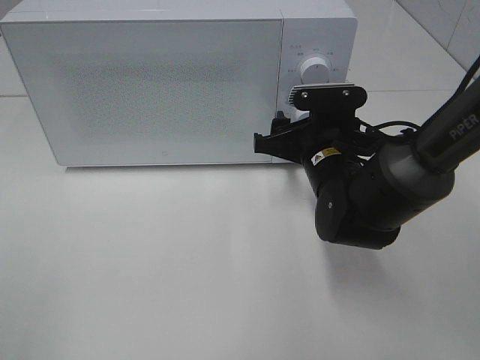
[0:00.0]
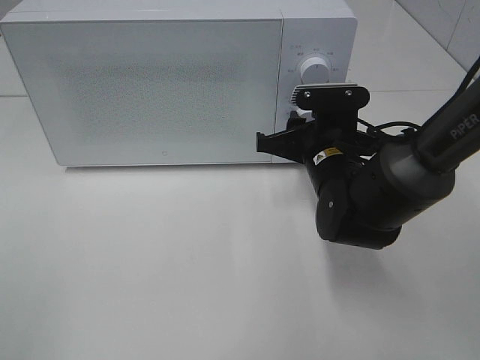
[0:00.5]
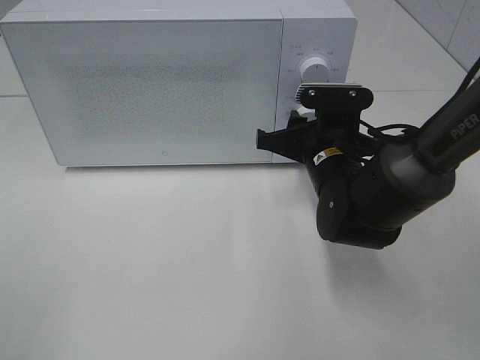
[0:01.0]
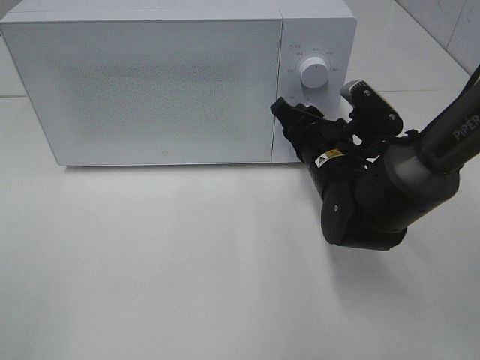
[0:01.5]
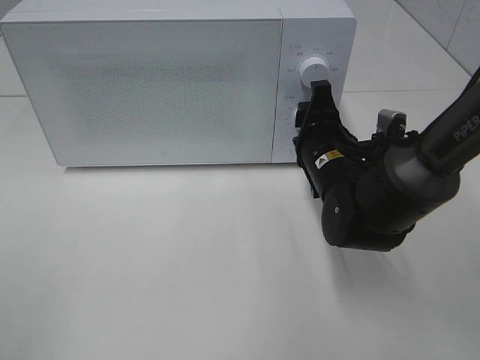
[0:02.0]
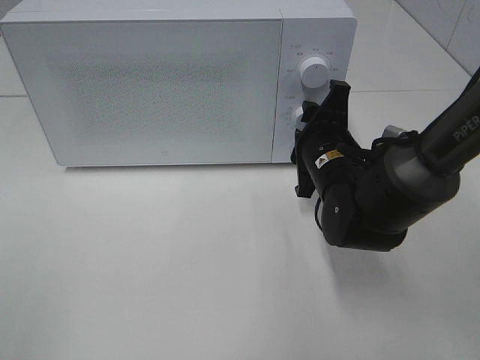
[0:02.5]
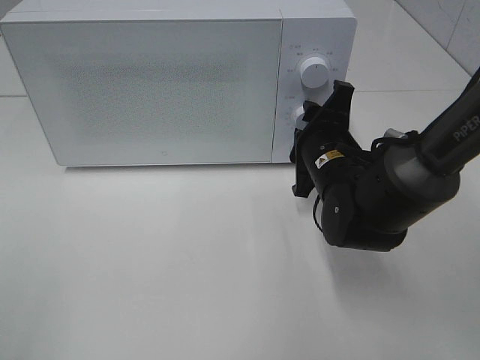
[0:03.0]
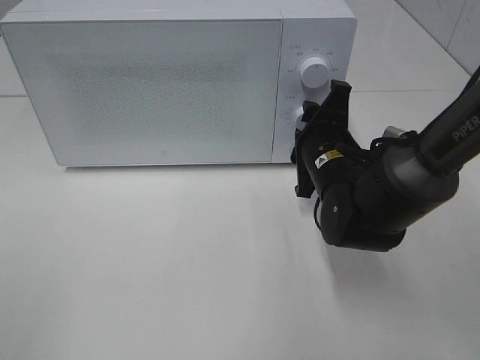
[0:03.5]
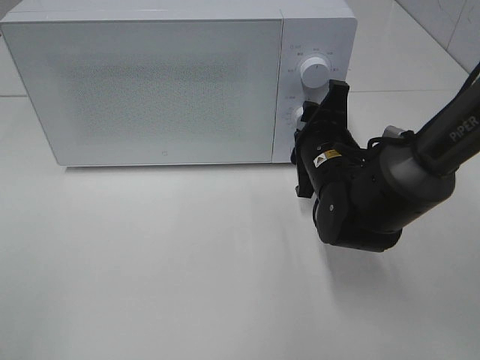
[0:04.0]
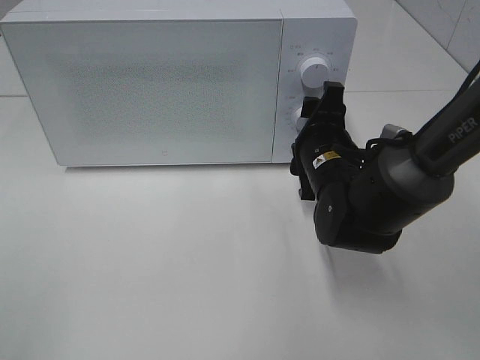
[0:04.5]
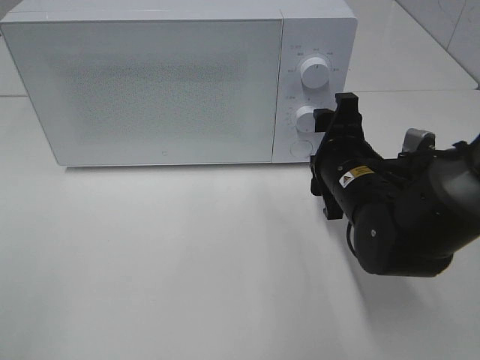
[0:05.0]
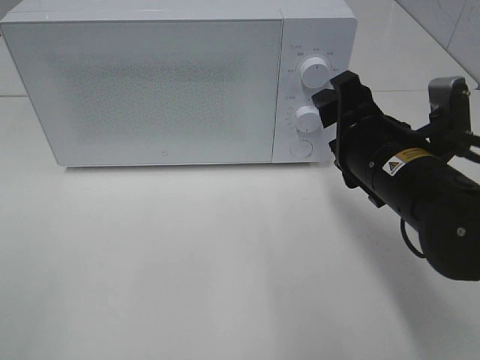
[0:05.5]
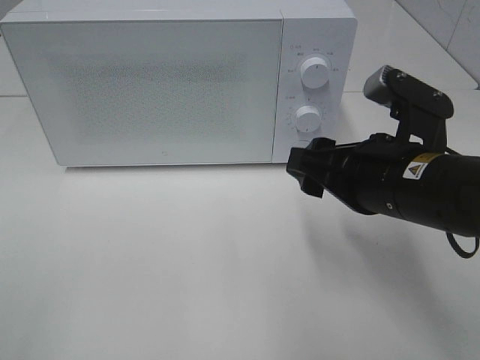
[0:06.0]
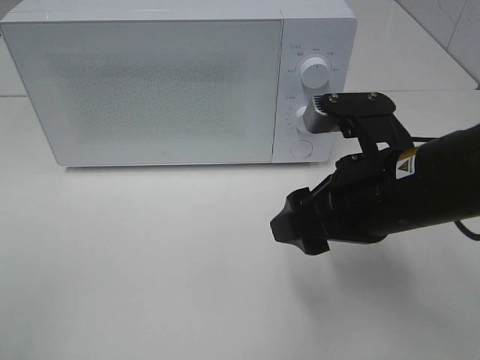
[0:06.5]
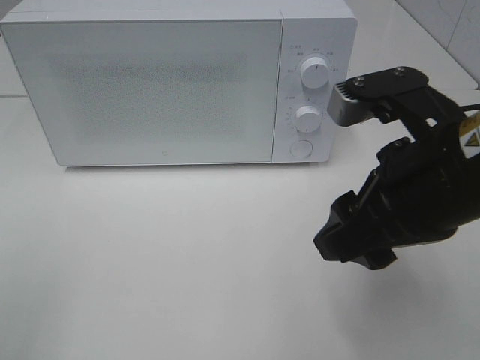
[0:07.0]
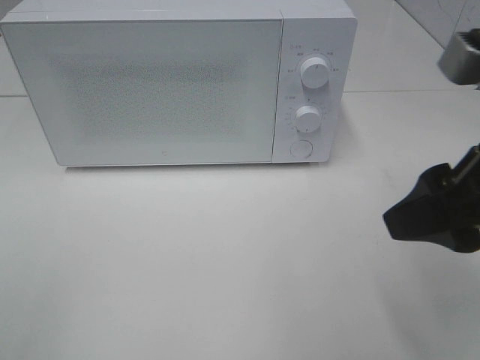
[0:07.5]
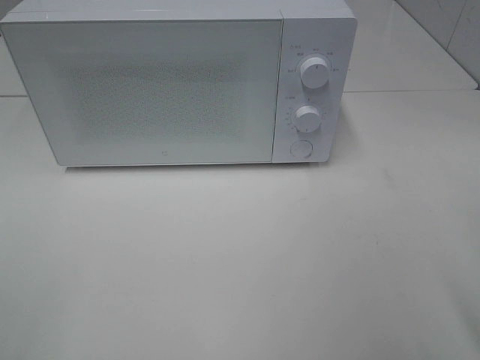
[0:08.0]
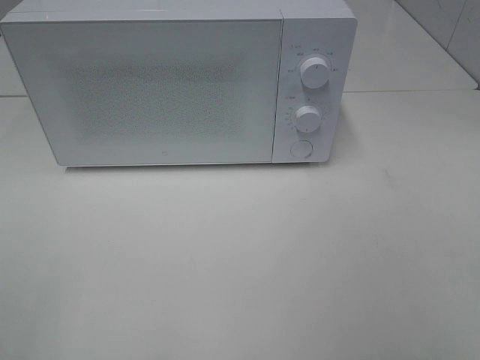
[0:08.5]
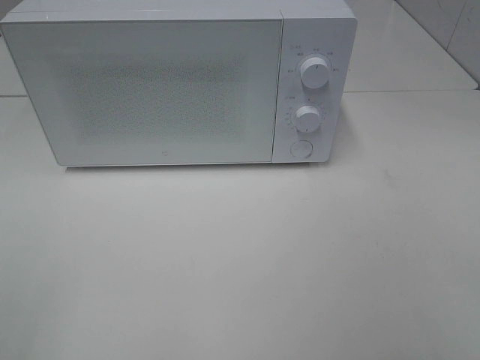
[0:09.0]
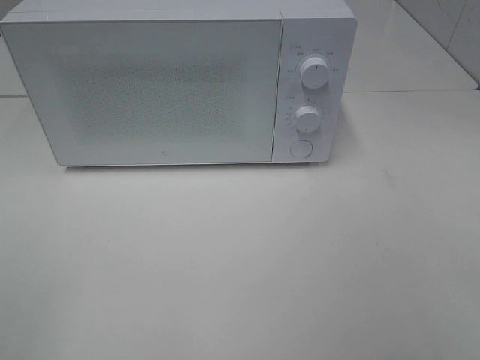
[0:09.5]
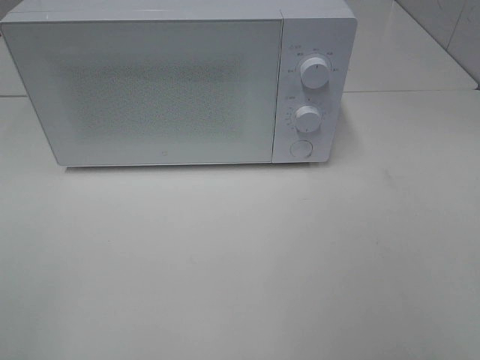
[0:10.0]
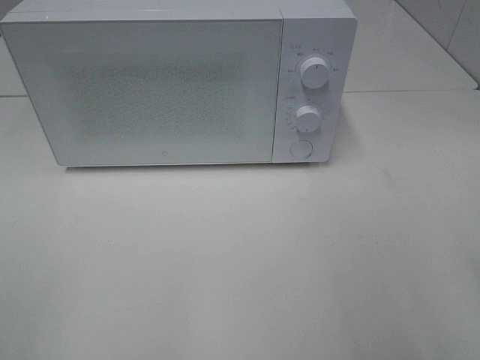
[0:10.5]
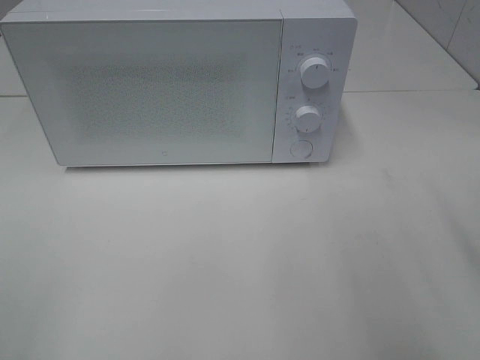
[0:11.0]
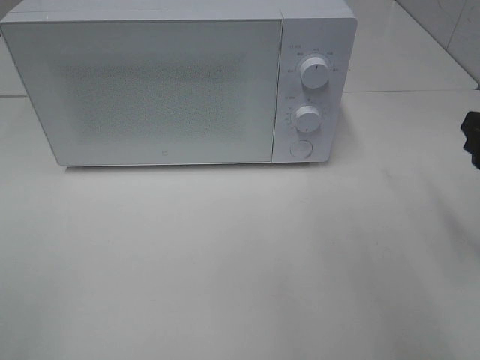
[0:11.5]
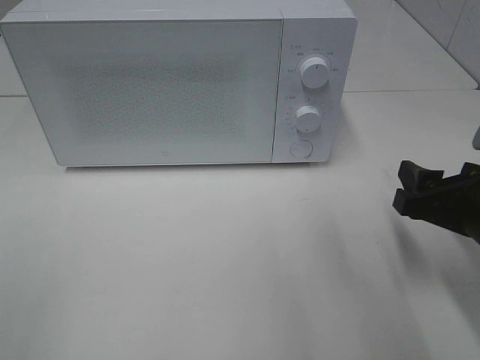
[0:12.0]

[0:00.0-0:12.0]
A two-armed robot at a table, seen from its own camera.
Task of the whole recording: Heat the burger.
Step, 0:00.0 to 0:04.5: Right hand: twist timer button.
0:02.0 to 0:04.0: There are only small adjustments of the grippers.
0:04.0 to 0:06.0: The right gripper heads backward and upward, covering roughly 15 cm.
0:06.0 to 0:08.0: The right gripper shifts approximately 20 cm to the right, backward and upward.
0:10.0 to 0:12.0: The right gripper goes about 25 cm forward and downward.

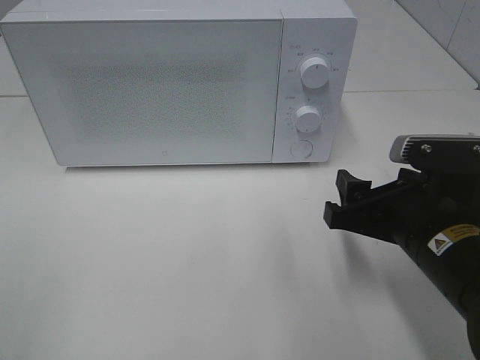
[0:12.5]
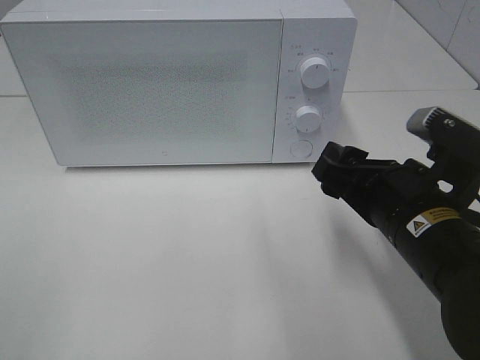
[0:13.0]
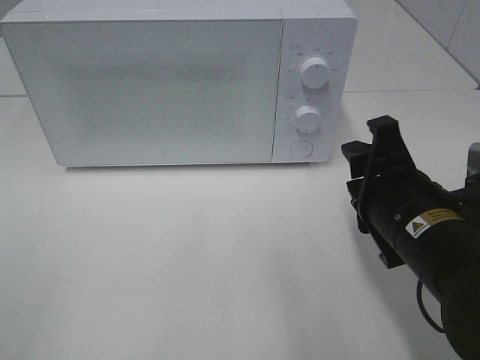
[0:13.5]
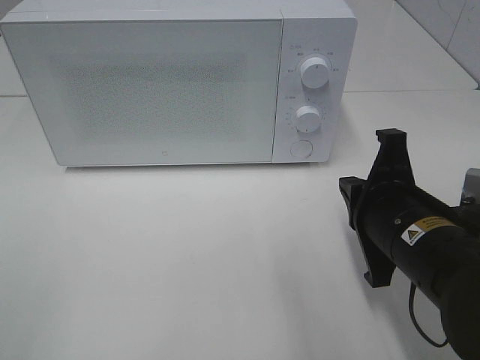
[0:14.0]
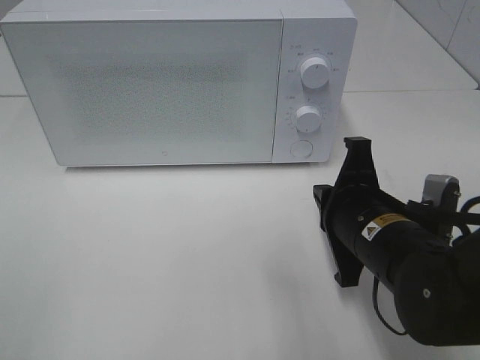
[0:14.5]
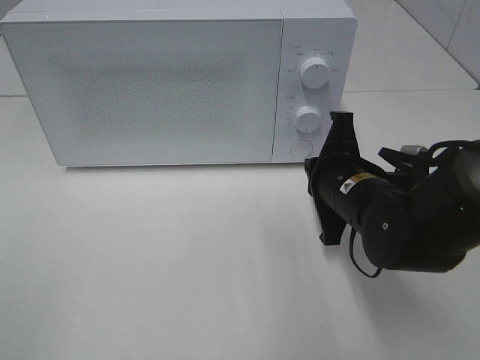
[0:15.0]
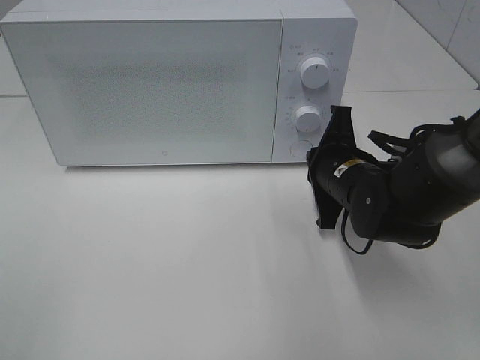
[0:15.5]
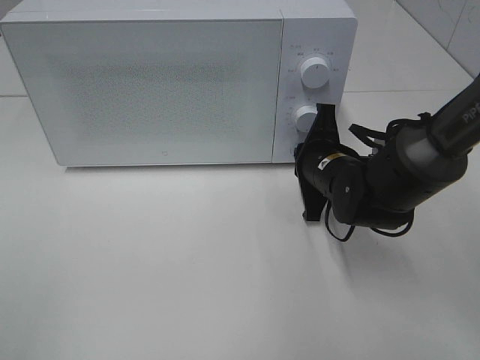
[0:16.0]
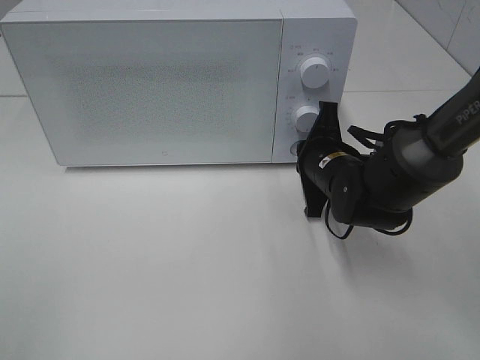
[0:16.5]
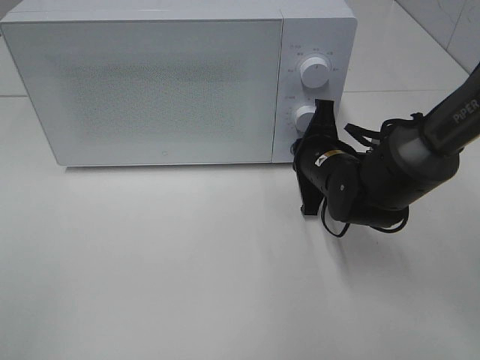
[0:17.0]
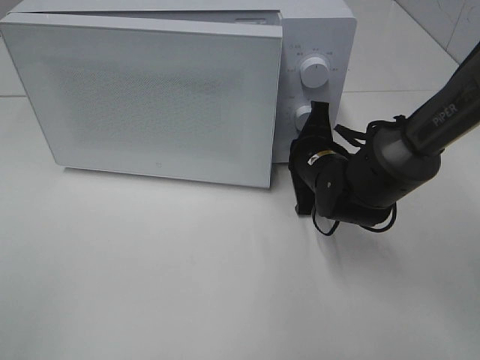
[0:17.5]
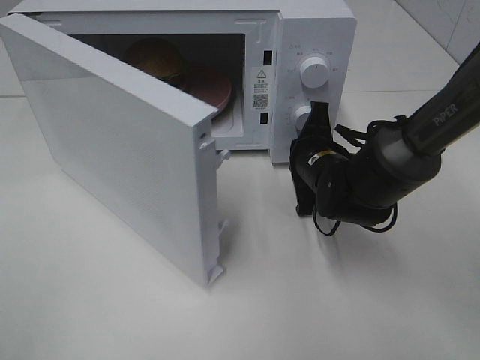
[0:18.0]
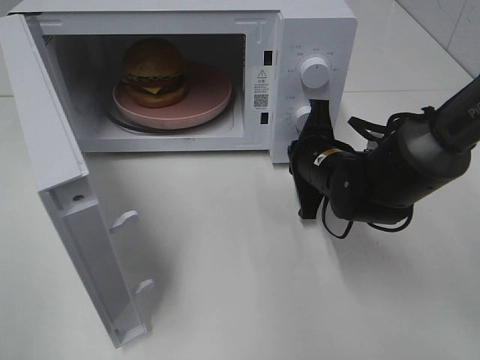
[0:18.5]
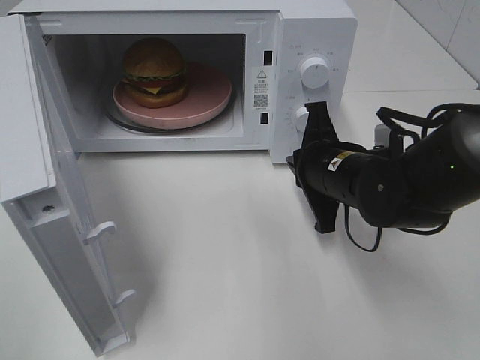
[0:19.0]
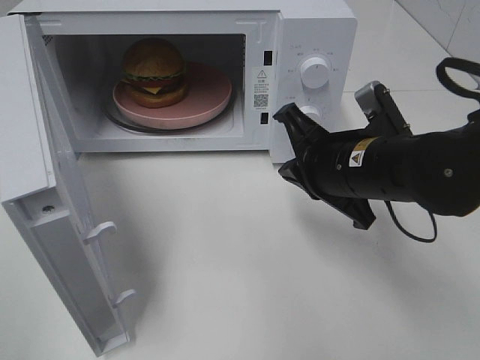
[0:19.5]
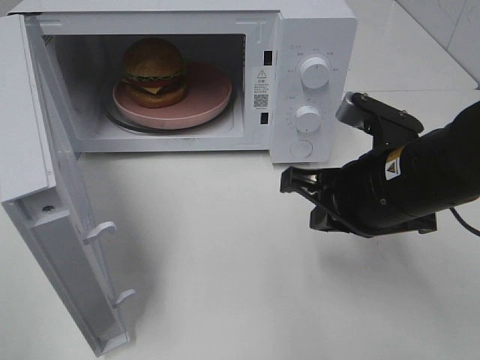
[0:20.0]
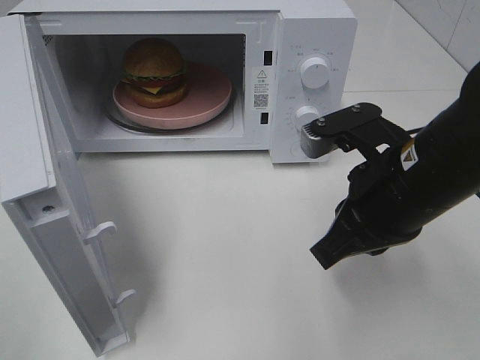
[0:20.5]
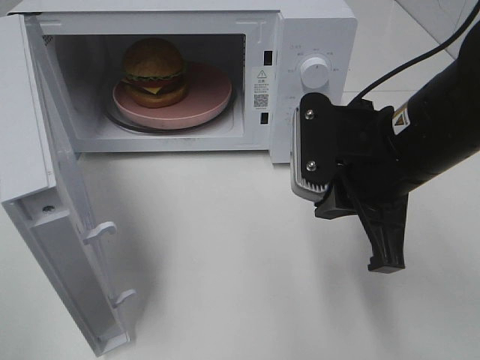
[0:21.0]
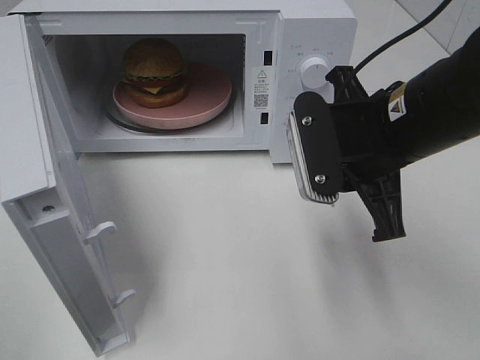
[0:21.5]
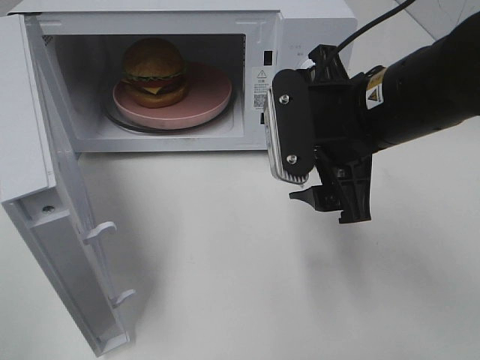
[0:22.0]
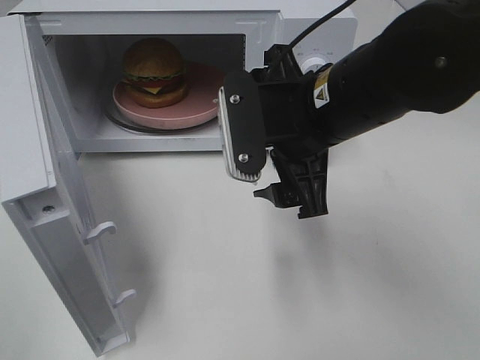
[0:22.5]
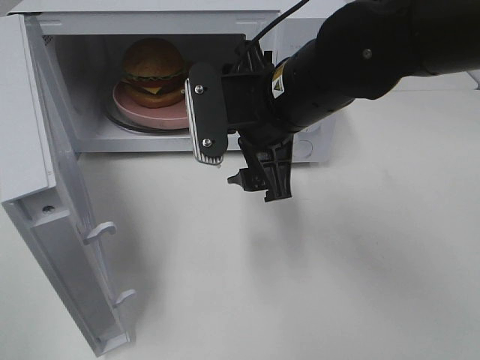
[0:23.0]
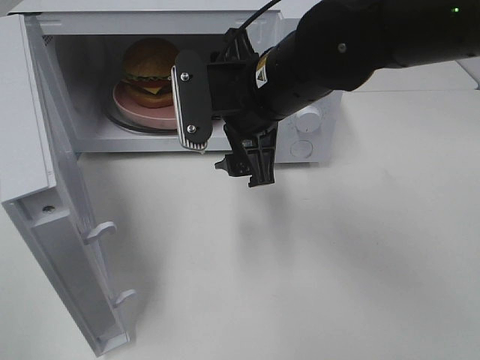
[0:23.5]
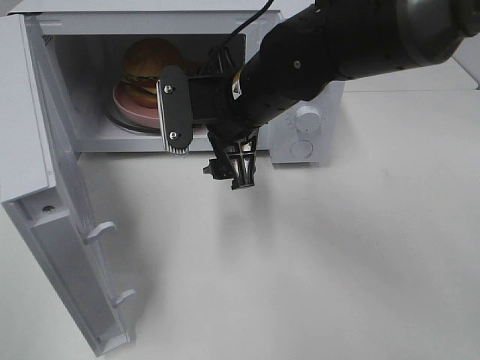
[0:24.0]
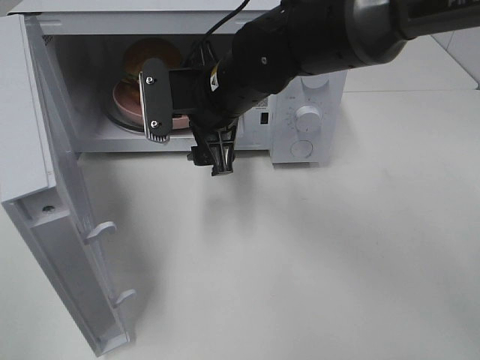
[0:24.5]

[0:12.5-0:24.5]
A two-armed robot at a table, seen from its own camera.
Task of the whole recording: Heat the burger.
Step, 0:12.5 to 0:18.5: Right hand: press the switch.
0:12.5 to 0:14.5: The right gripper shifts by about 5 cm, and closes.
0:14.5 to 0:16.5: The right gripper moves forward, approximately 15 cm.
0:18.5 to 0:20.5: The right gripper shifts some 15 cm backward and upward.
0:20.5 to 0:22.5: The right gripper is displaced to the left by some 5 cm, and opens its fingers.
0:22.5 to 0:24.5: The right gripper is displaced forward and to the left by some 10 cm.

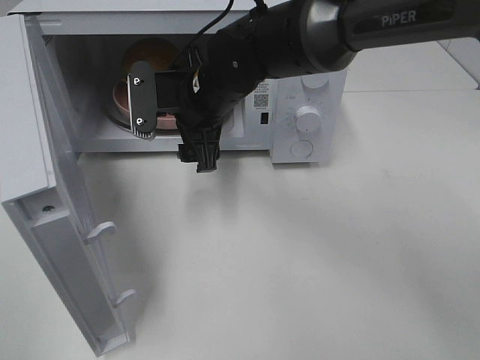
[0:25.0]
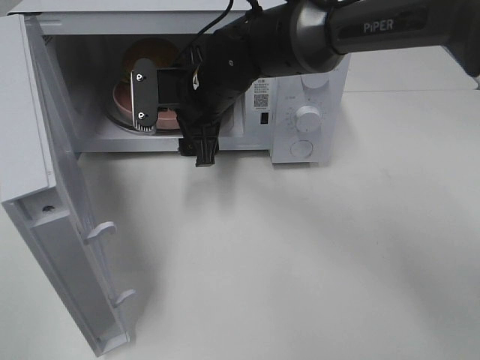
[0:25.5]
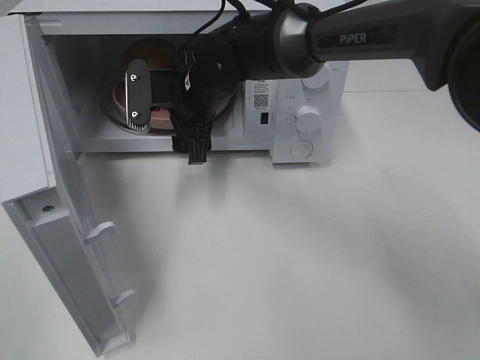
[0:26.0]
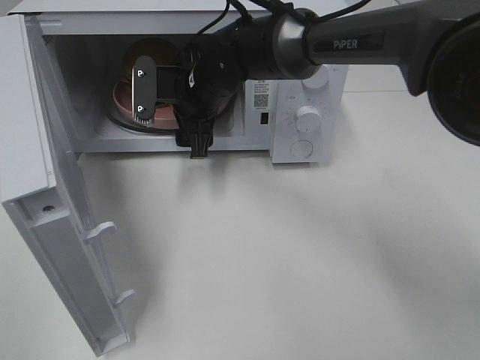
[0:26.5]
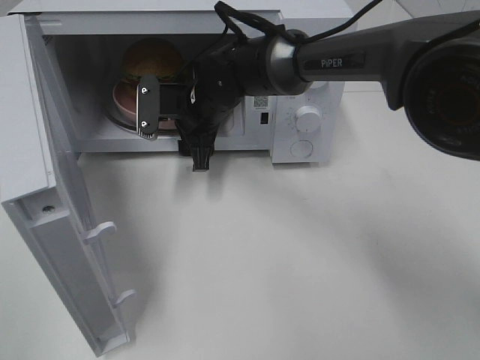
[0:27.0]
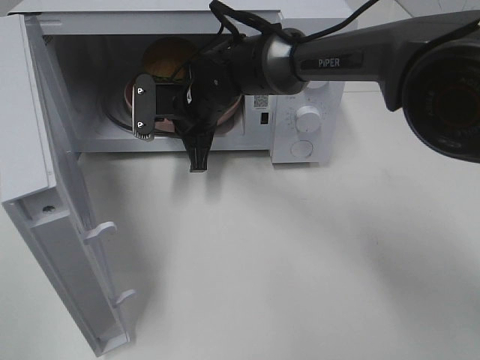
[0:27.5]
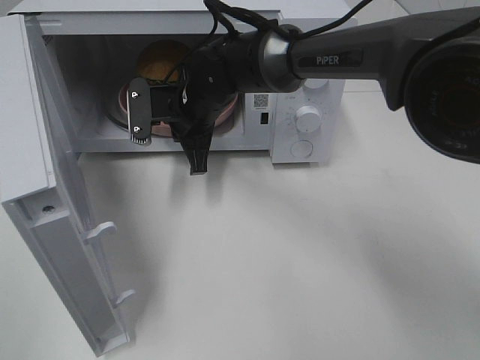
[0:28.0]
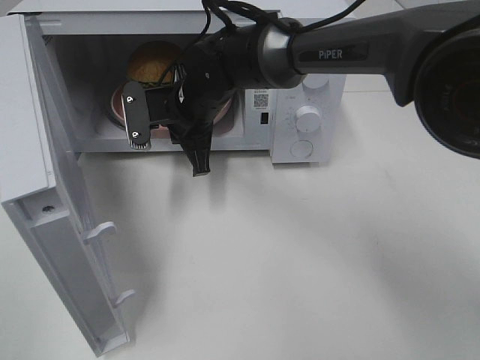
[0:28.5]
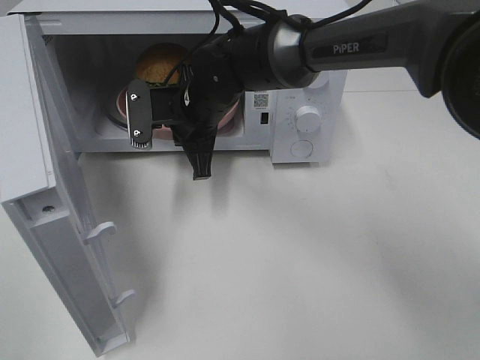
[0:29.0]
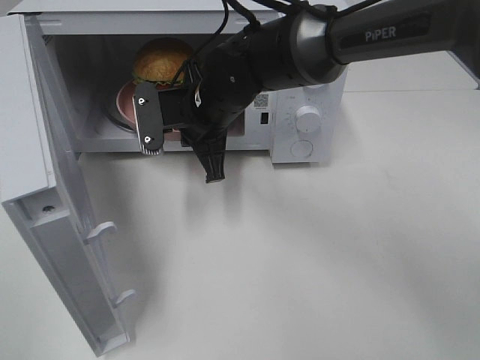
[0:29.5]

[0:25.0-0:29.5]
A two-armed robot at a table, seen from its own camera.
Task of the whole recording: Heat the burger.
Step, 0:25.0 to 0:27.0: Right hand: grab the plate with the hamburger.
0:25.0 to 0:27.0: The right gripper moves forward, roughly 5 cm.
0:27.0 to 0:29.5: The right gripper is displaced backward by some 5 cm, and closes its fingers.
